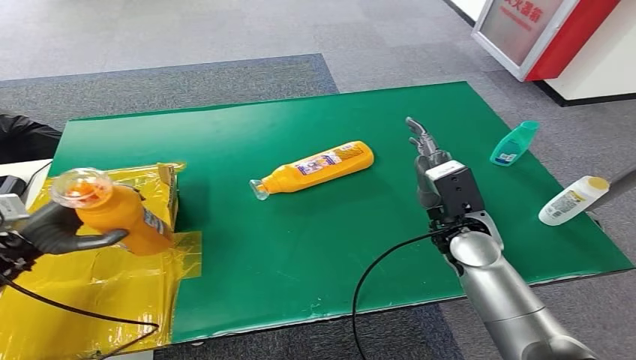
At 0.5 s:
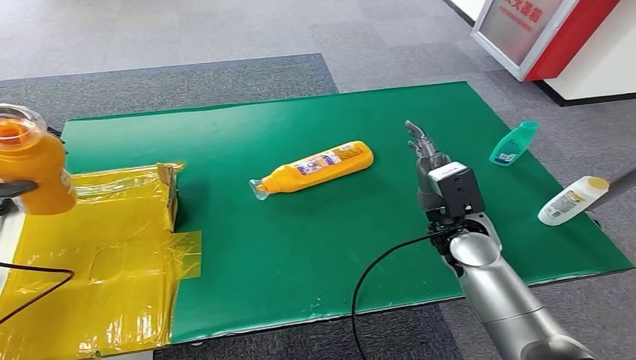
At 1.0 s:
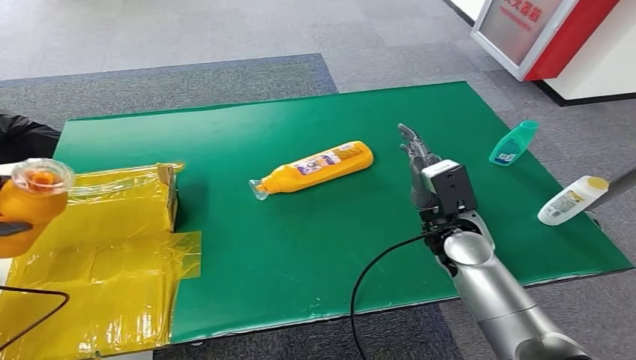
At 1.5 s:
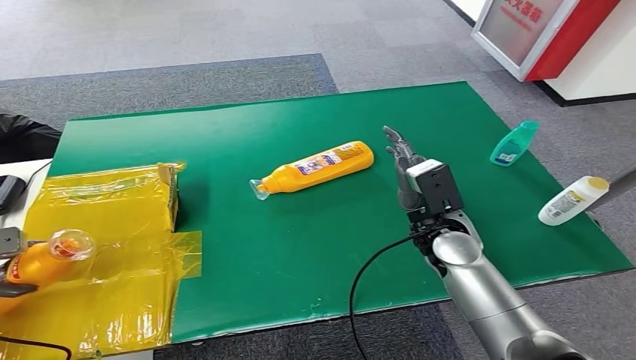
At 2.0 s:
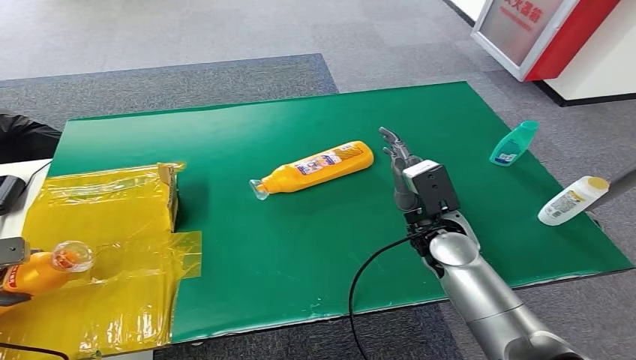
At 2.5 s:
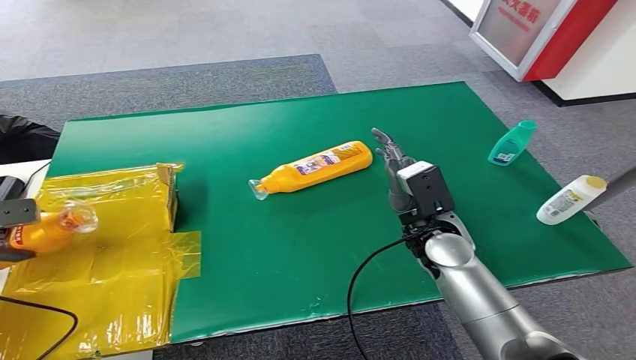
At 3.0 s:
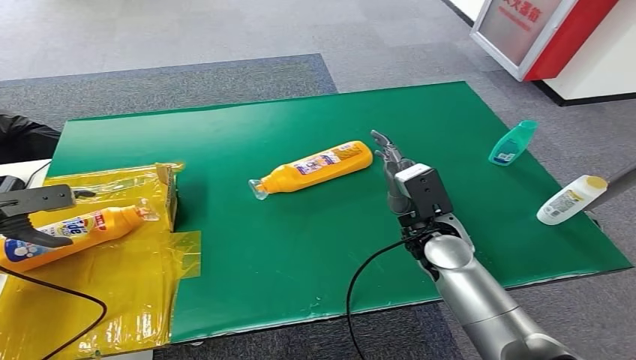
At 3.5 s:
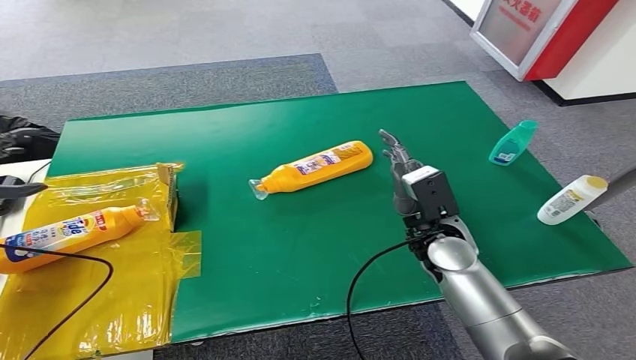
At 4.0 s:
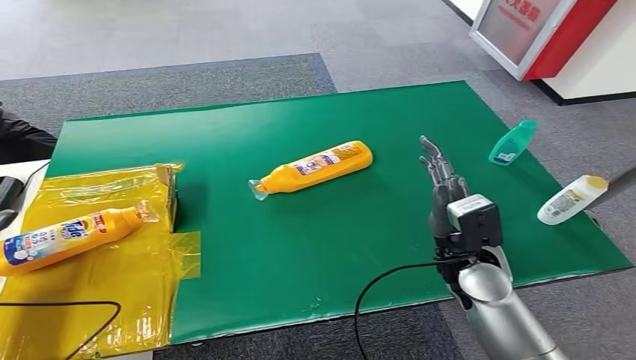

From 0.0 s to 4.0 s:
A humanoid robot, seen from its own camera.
Step, from 0.0 s to 3.5 s: Turn the bottle to the front side.
From 0.0 s to 2.0 s: The left hand moves to the left, roughly 15 cm, and travels upward and back again, about 15 cm each way.
From 2.0 s to 4.0 s: The right hand travels backward by roughly 5 cm, while the left hand reaches approximately 10 cm forward, then returns.

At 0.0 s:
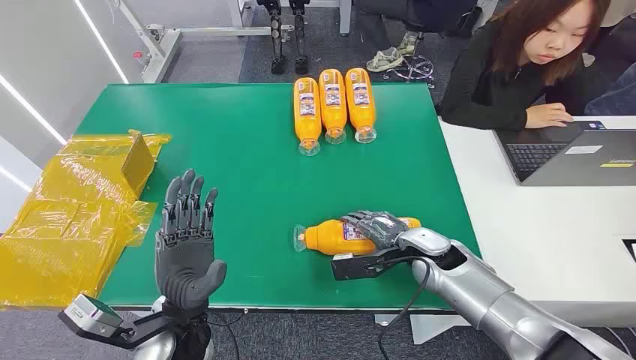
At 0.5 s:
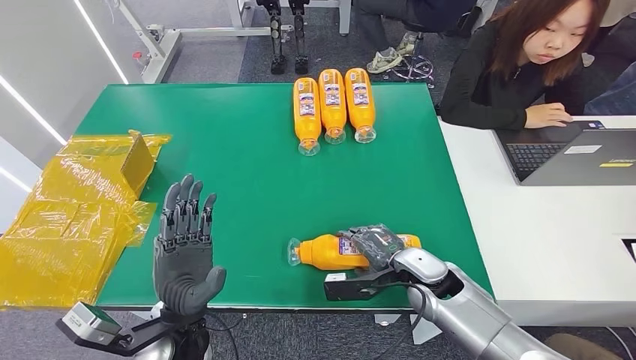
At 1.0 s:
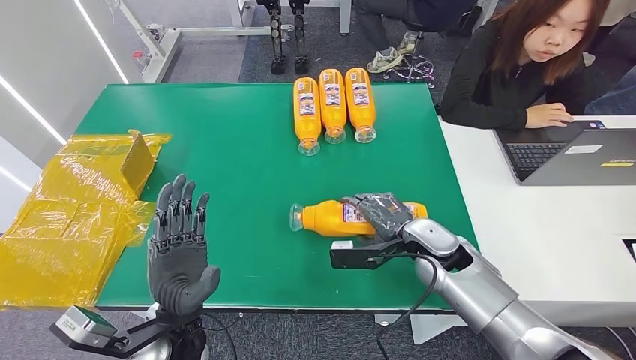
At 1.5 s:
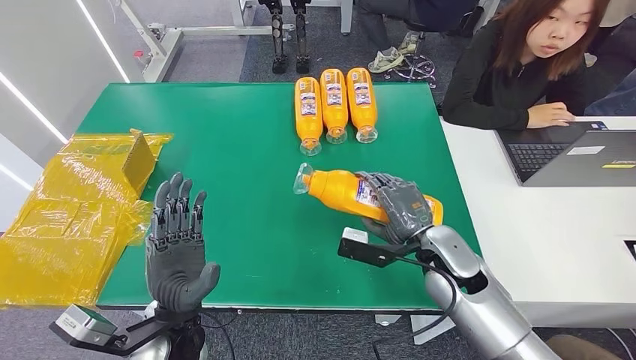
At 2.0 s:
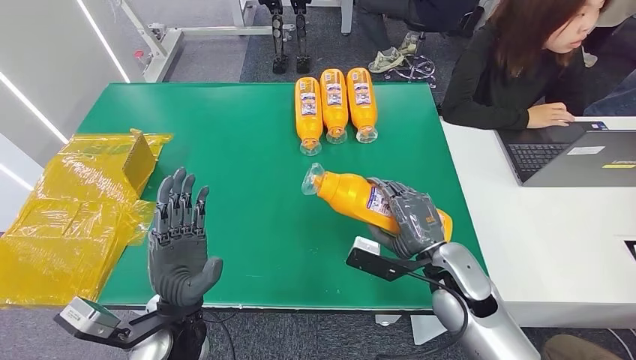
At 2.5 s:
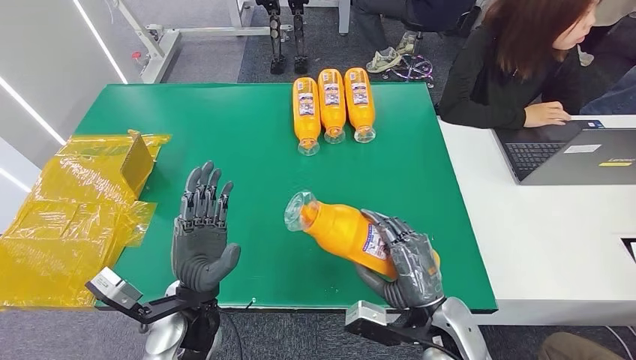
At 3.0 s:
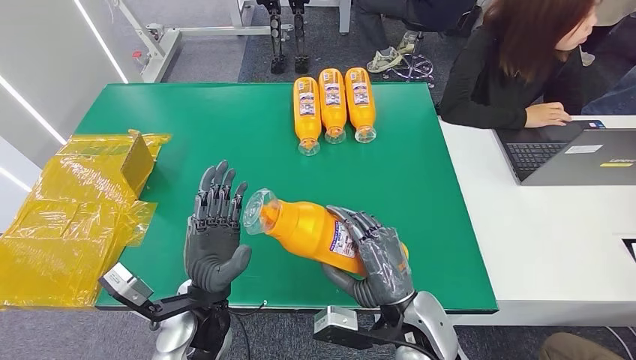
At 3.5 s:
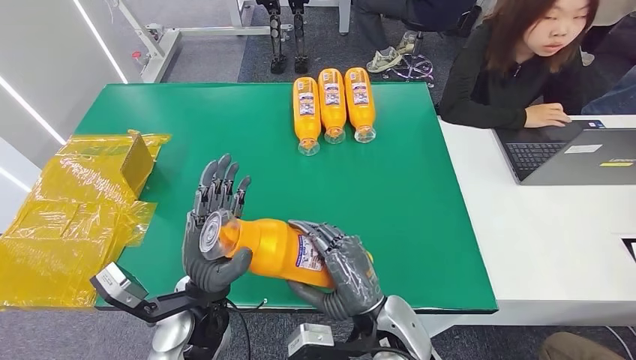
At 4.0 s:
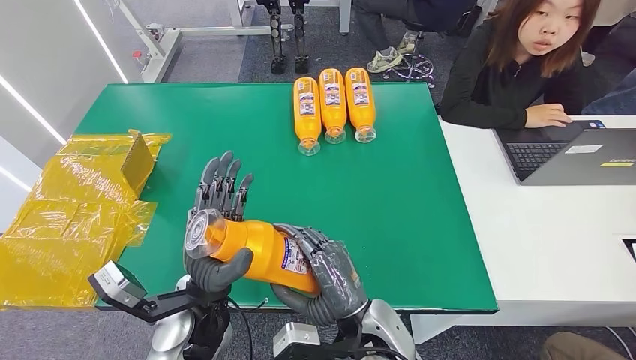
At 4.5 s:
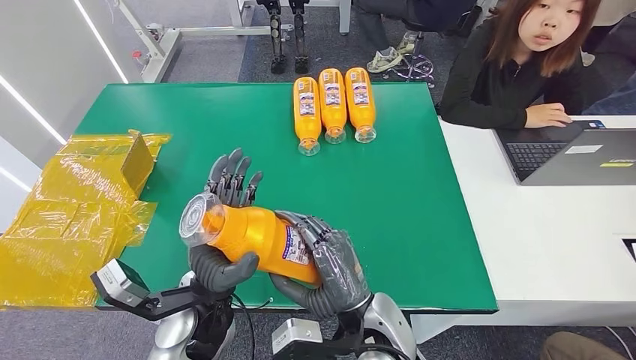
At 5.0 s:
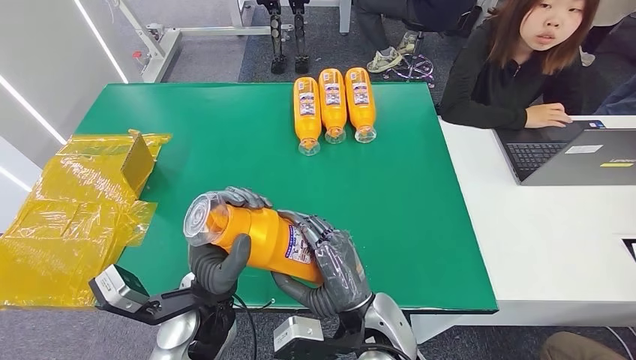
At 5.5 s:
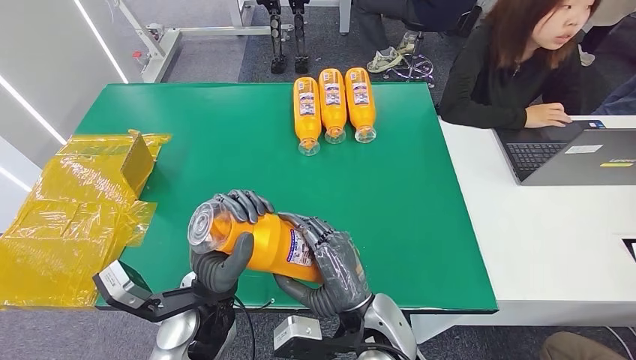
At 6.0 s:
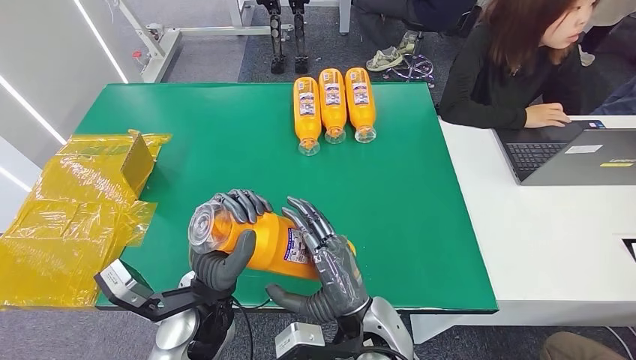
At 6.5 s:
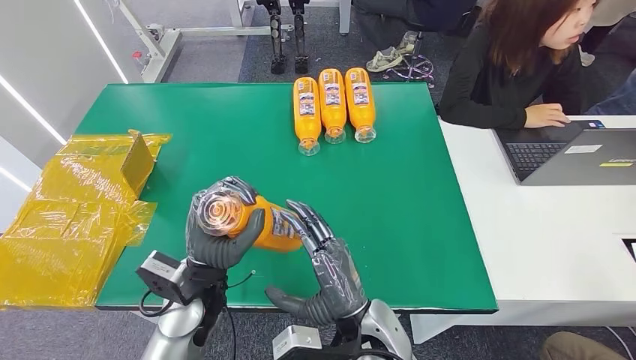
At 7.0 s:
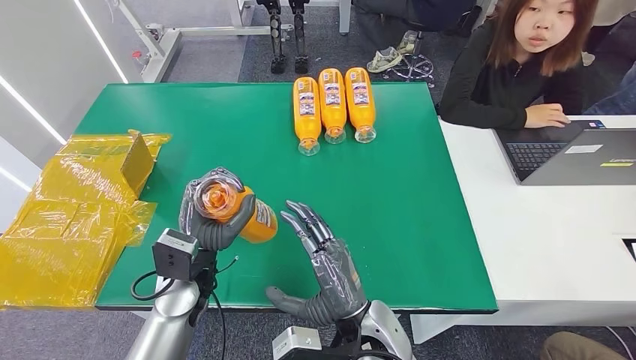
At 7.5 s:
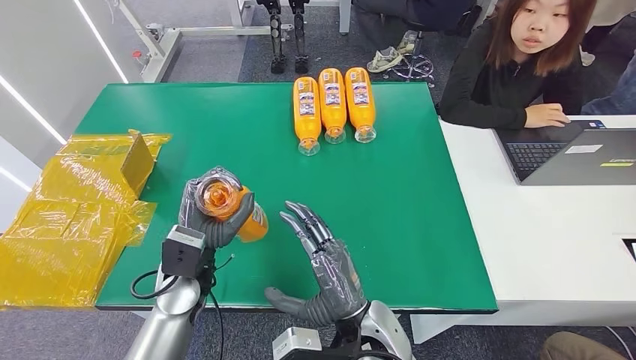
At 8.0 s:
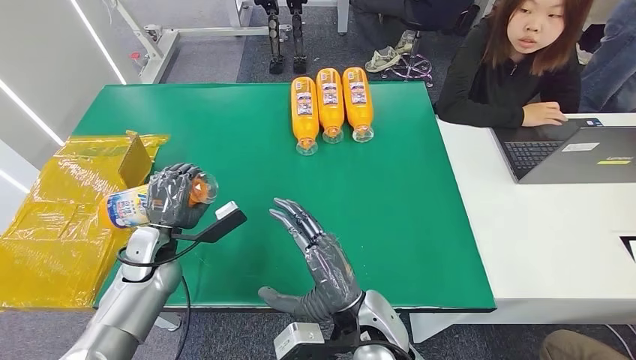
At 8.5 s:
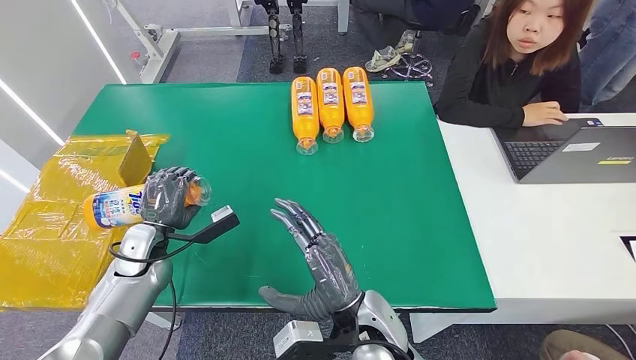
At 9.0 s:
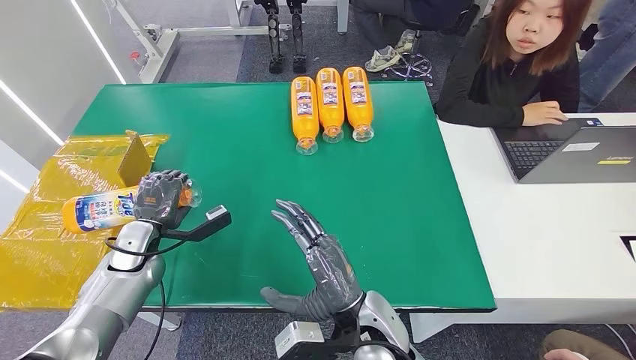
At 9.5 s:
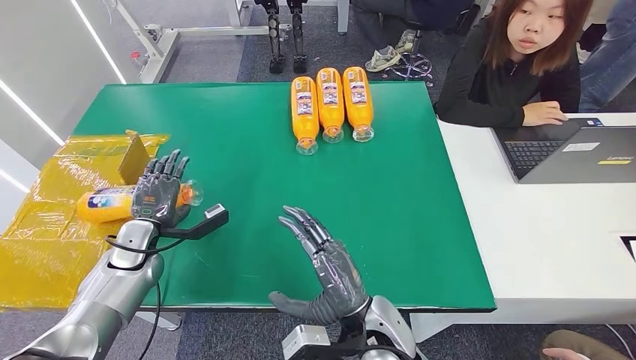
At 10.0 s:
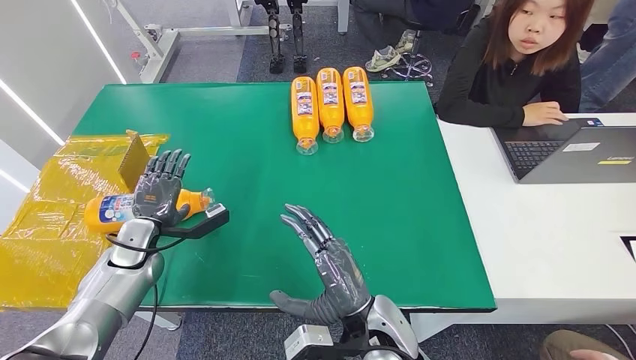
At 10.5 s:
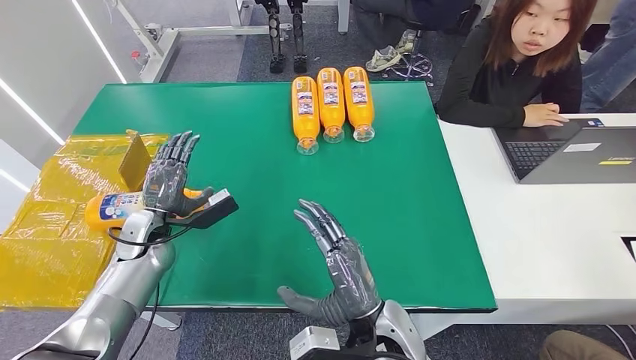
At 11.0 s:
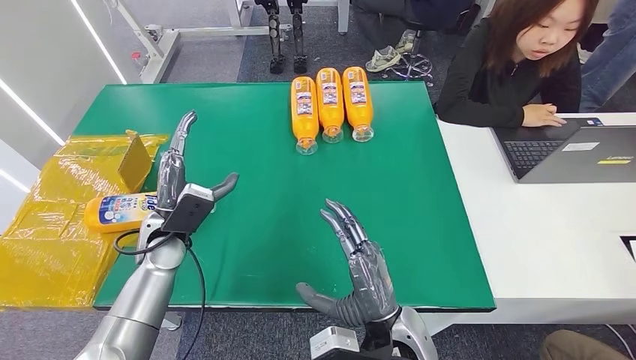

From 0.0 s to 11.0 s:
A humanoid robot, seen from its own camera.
Step, from 0.0 s to 3.0 s: Pick up the bottle from the table.
Step, from 3.5 s to 11.0 s: Turn the bottle to the front side.
From 3.5 s to 5.5 s: The hands move only a little.
From 5.5 s to 7.5 s: The left hand goes some 10 cm to the left and forward.
From 7.5 s to 9.0 s: The left hand heads to the left, covering about 15 cm.
From 9.0 s to 11.0 s: The left hand travels to the right by roughly 10 cm.
